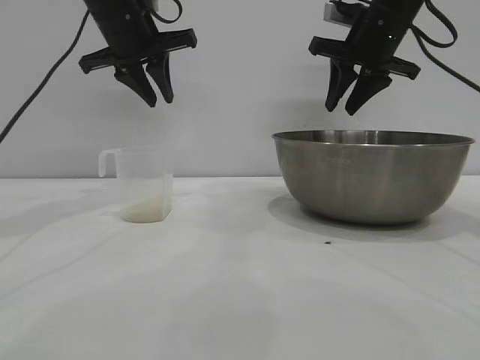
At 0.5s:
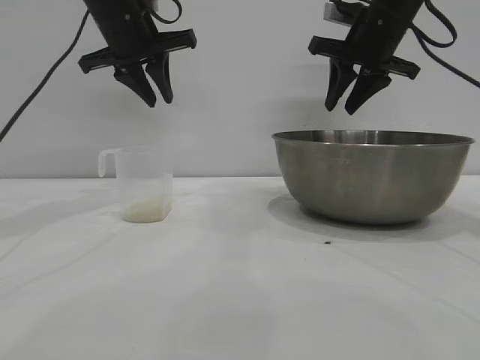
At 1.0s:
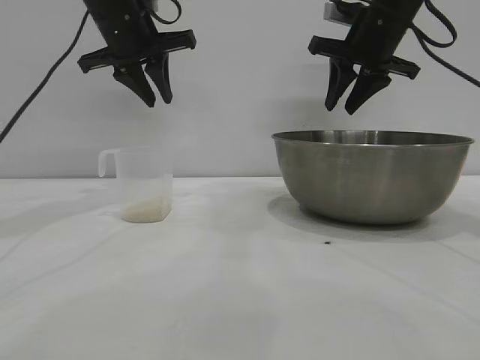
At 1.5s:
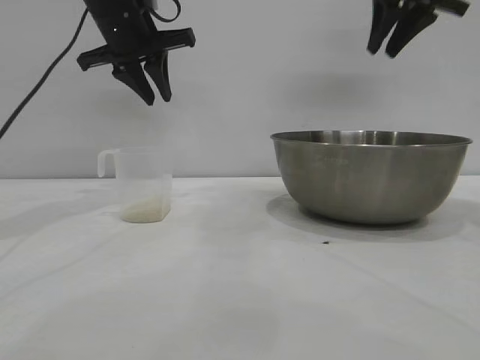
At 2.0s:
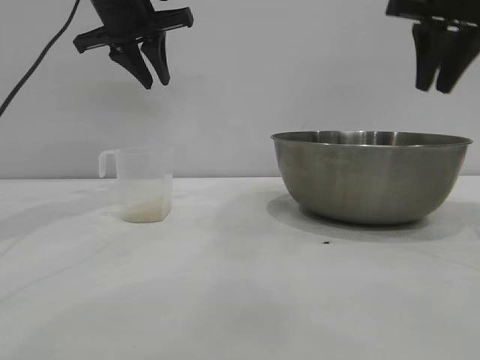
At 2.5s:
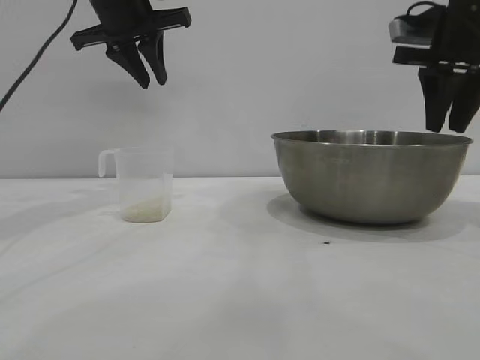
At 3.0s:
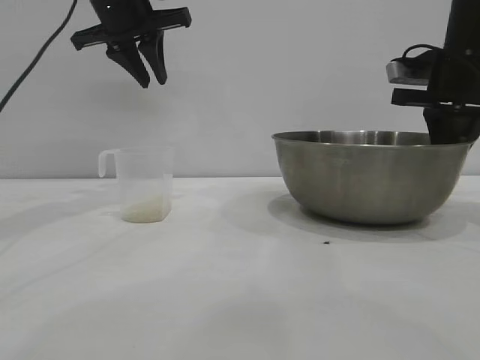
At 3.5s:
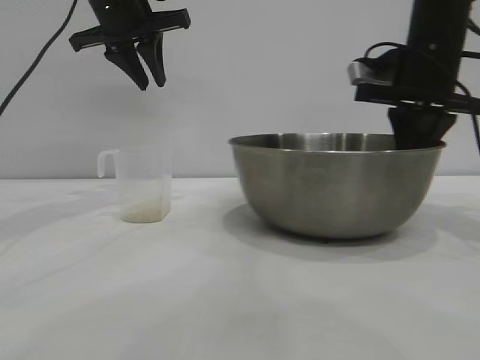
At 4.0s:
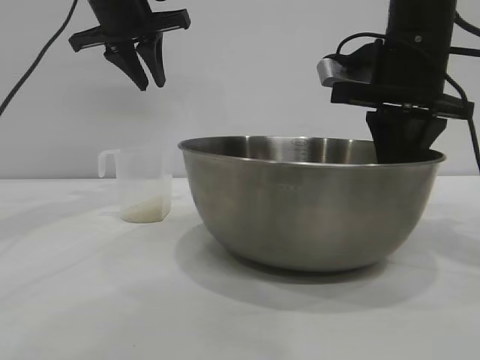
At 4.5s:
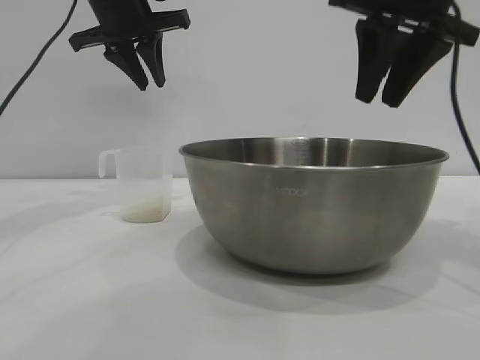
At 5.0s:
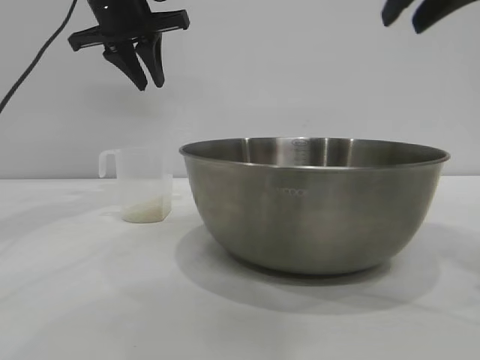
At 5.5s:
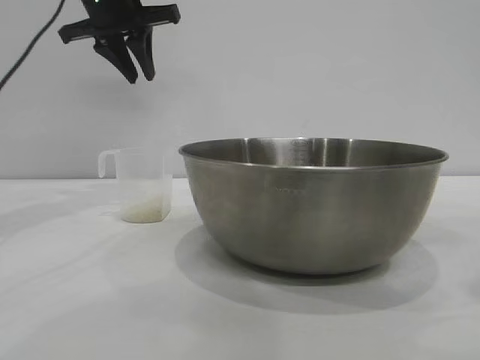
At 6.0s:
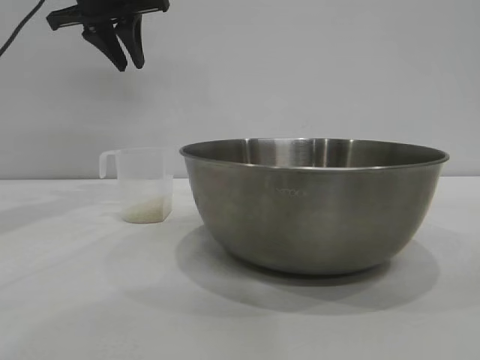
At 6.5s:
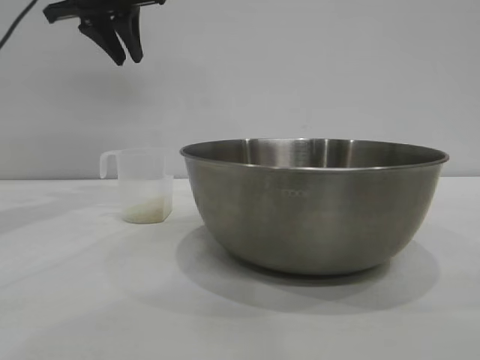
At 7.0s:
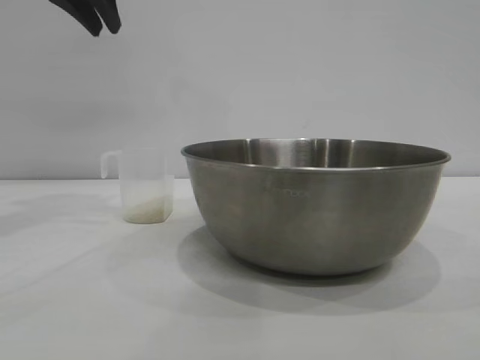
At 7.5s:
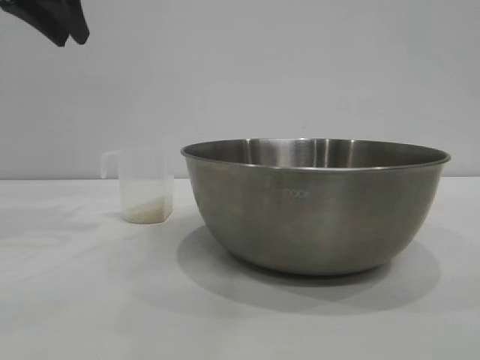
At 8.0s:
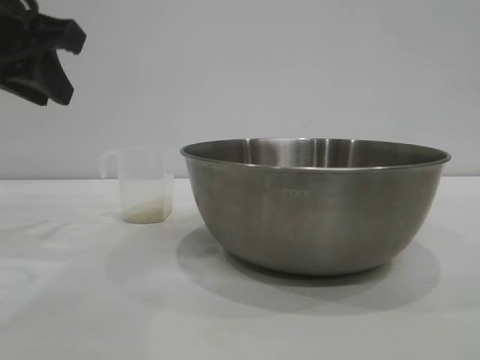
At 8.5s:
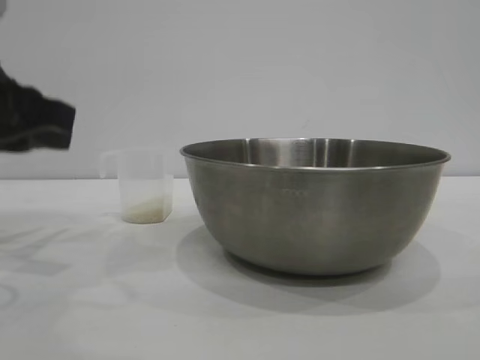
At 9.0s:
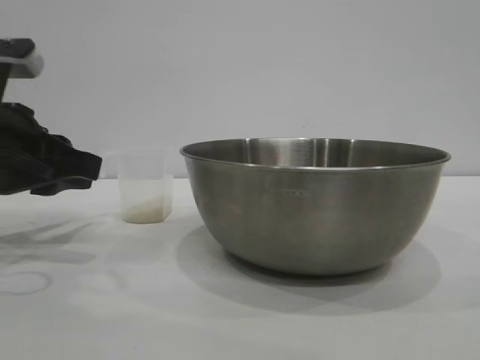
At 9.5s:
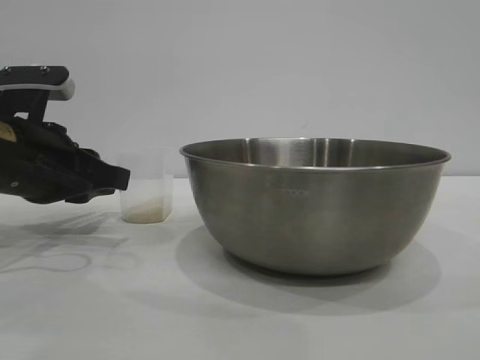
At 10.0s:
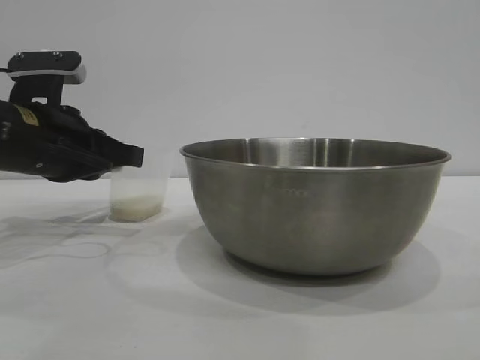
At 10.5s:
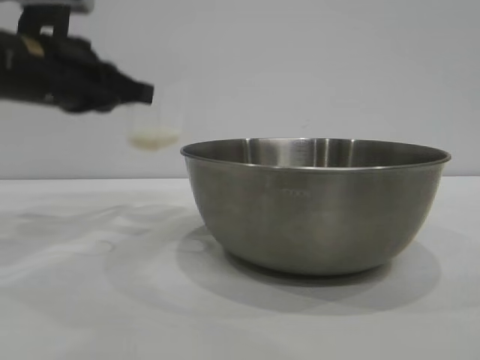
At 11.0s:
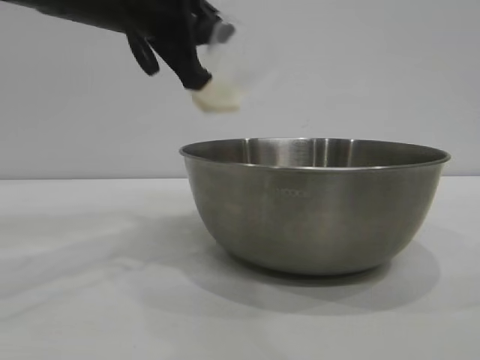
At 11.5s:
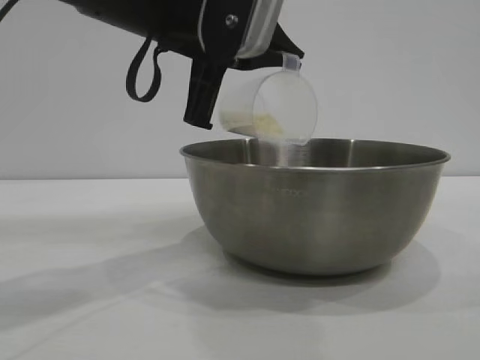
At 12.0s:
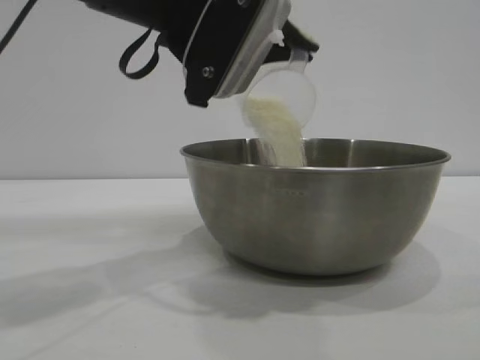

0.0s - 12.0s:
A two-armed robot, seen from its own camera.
Task of the whole recording: the right gripper grasp the rice container and place it in the center of the table, the left gripper grasp the rice scoop and pour the rice into the rice container.
Step, 0.0s - 4.5s: Move the bowl to the center of view with the right gripper.
Step, 5.0s - 10.0s: Pick up the cup with rice in it with the left gripper.

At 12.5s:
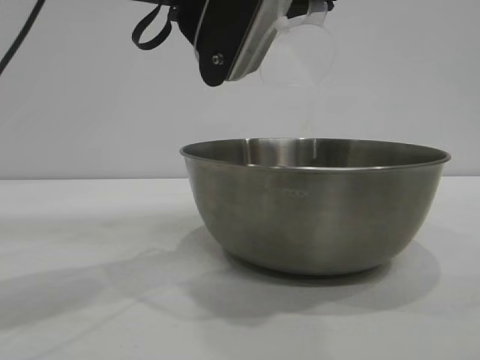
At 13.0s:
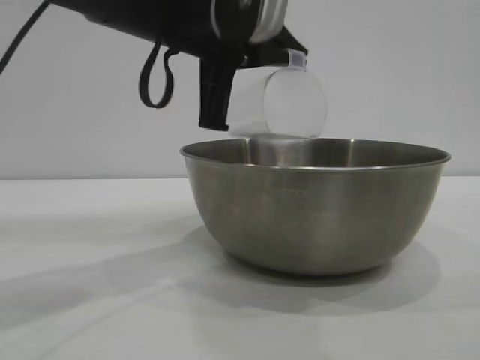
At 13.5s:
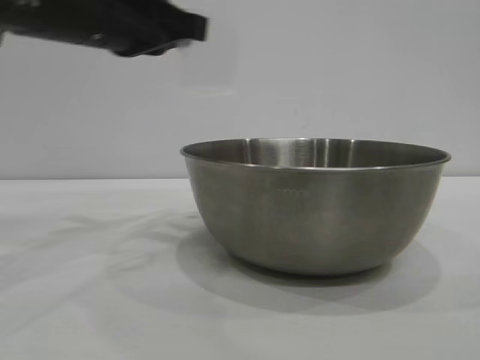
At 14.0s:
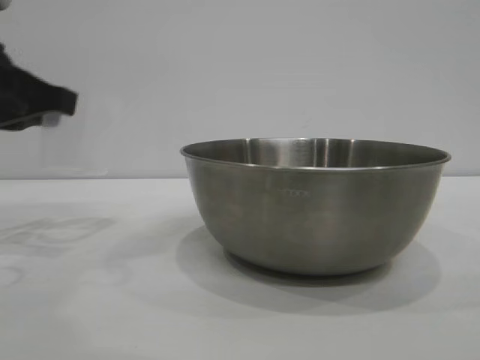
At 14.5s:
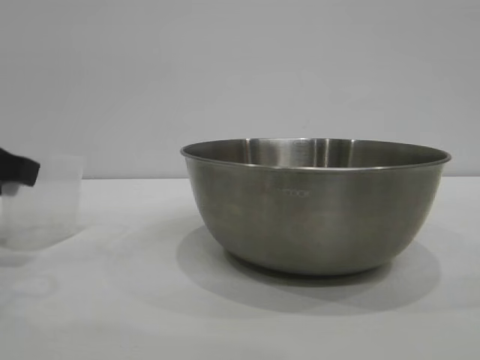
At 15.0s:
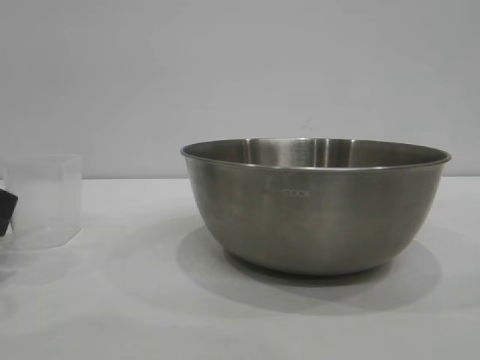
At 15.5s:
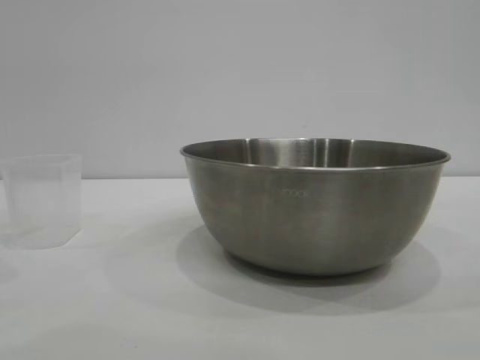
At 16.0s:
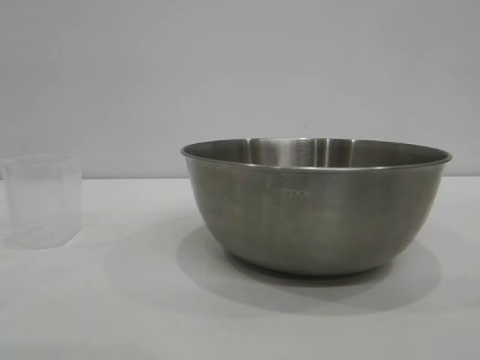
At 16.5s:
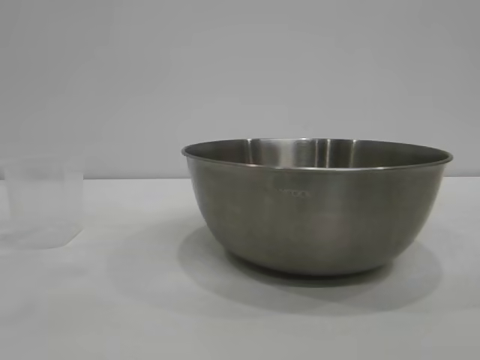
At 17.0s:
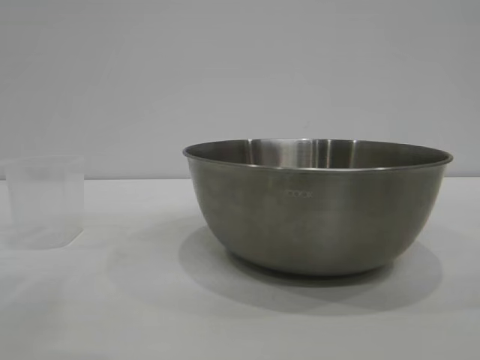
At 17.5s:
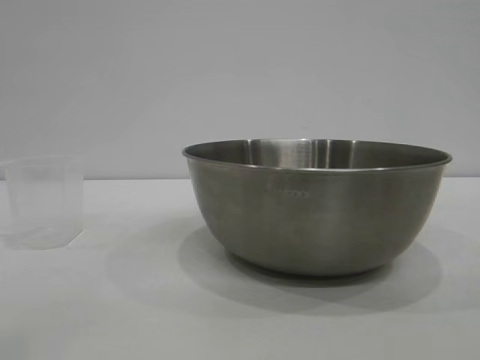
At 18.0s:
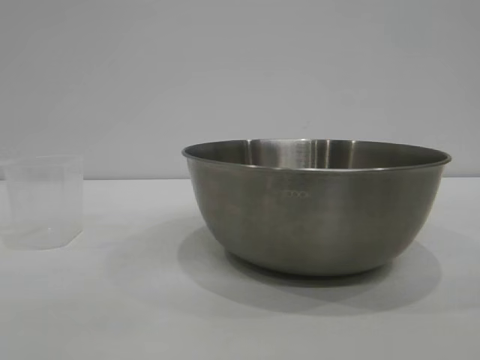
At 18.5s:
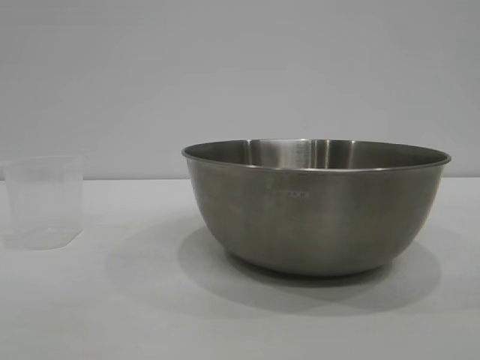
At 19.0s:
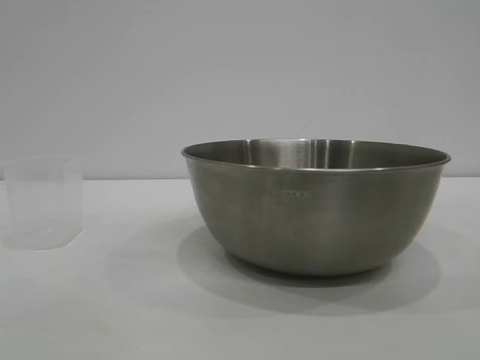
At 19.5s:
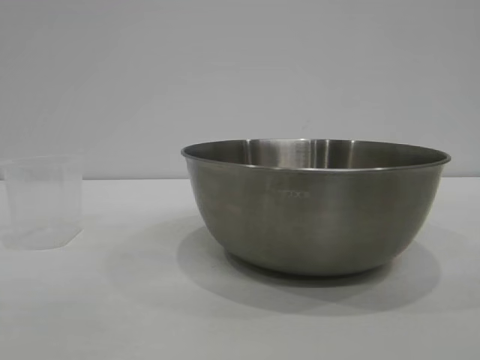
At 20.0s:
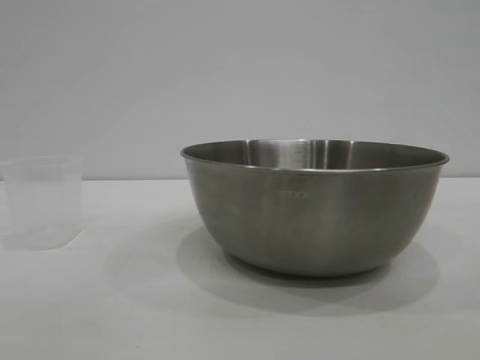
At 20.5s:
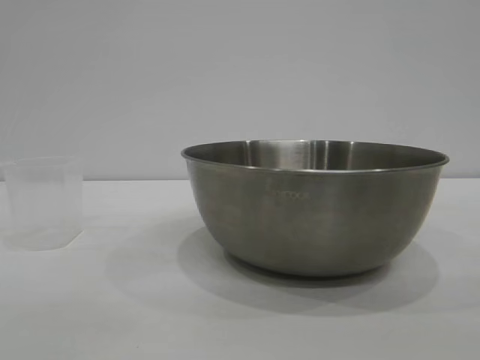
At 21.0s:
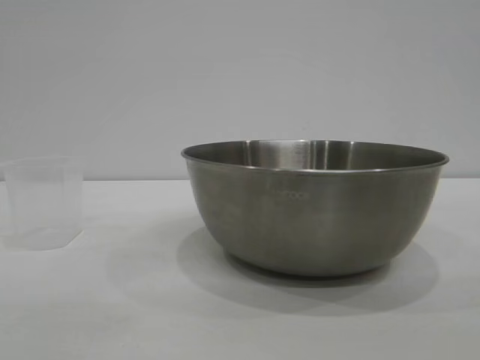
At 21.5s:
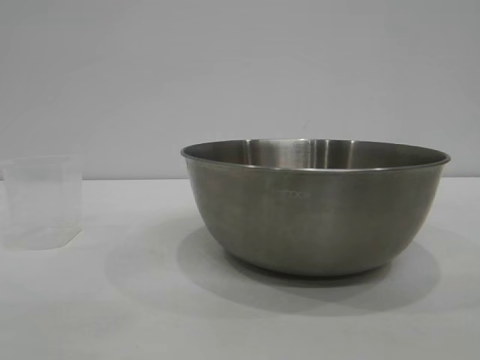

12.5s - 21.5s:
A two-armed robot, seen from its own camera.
Task of the whole recording: the right gripper grasp the rice container and place it in the center of the table, the left gripper grasp the rice scoop and pour the rice into the rice container.
Step, 13.5s - 15.0s: Place the cup on the table with the left gripper.
